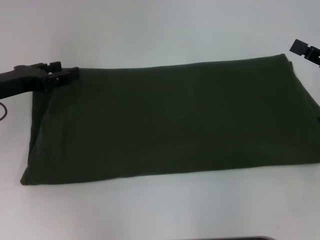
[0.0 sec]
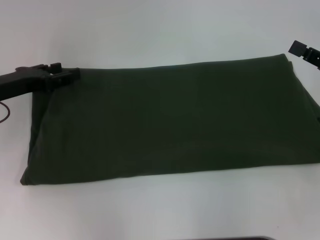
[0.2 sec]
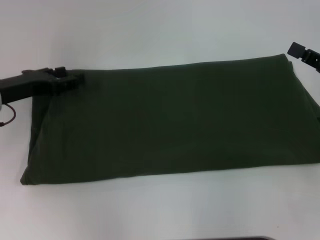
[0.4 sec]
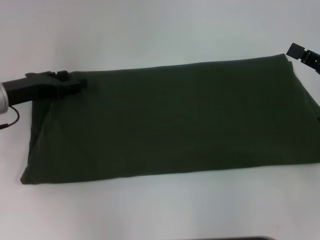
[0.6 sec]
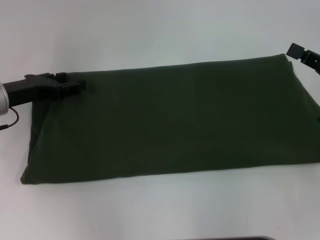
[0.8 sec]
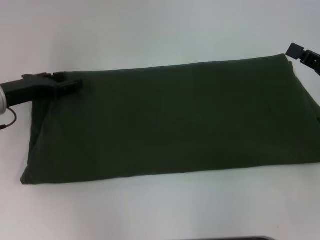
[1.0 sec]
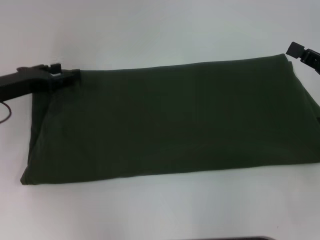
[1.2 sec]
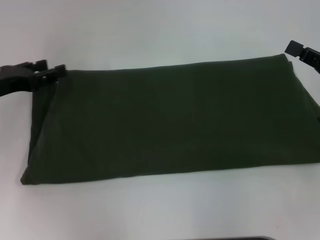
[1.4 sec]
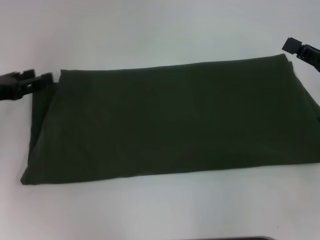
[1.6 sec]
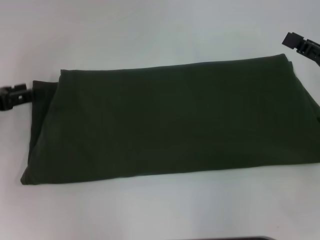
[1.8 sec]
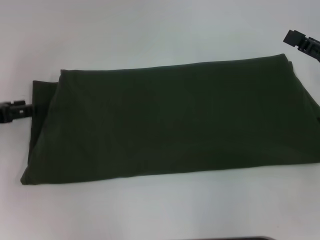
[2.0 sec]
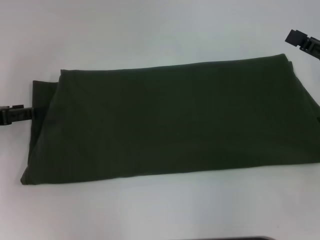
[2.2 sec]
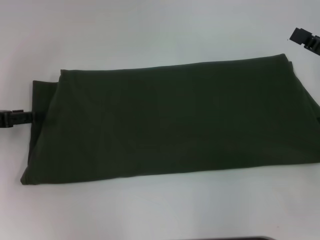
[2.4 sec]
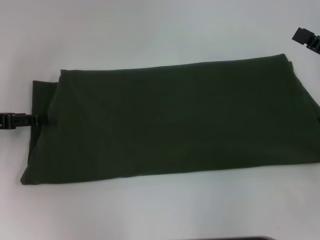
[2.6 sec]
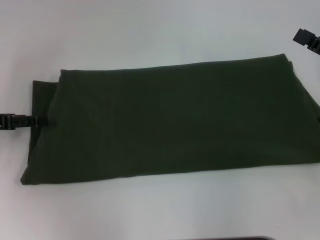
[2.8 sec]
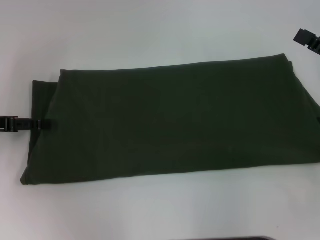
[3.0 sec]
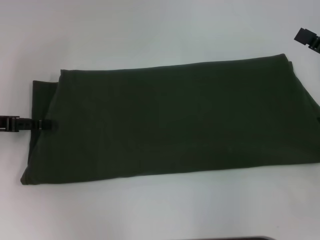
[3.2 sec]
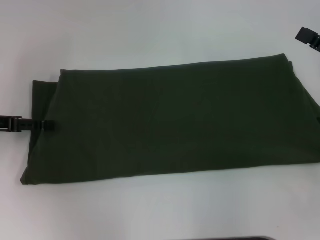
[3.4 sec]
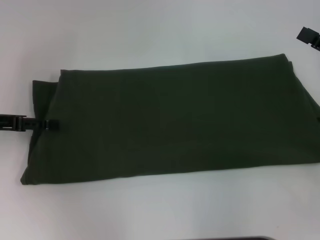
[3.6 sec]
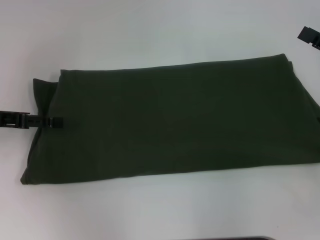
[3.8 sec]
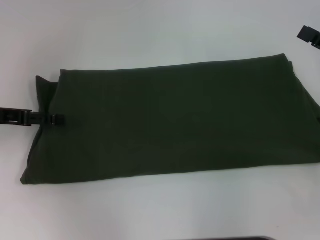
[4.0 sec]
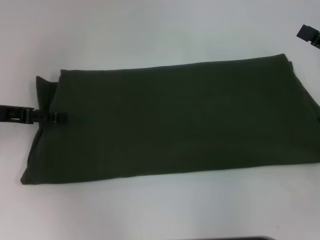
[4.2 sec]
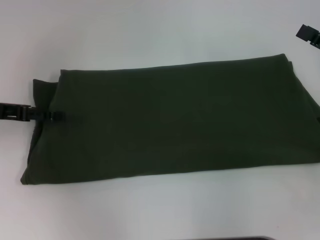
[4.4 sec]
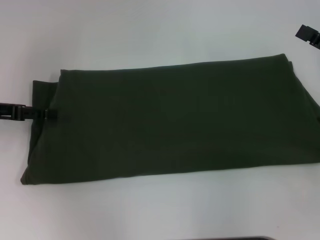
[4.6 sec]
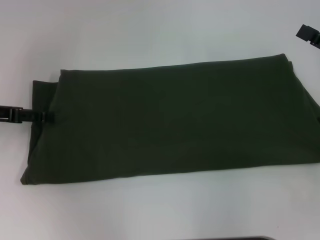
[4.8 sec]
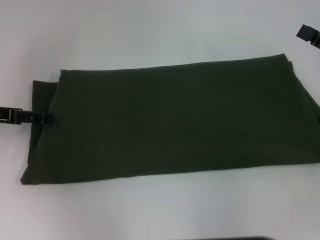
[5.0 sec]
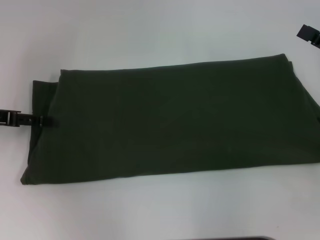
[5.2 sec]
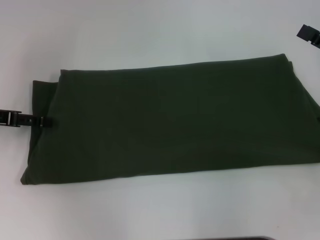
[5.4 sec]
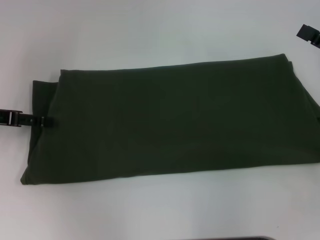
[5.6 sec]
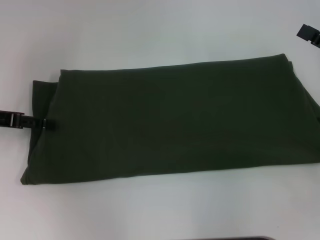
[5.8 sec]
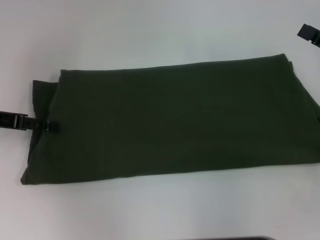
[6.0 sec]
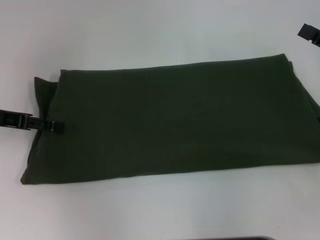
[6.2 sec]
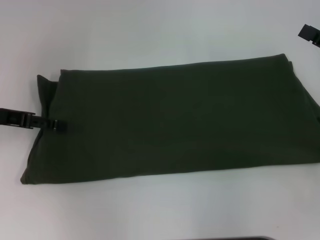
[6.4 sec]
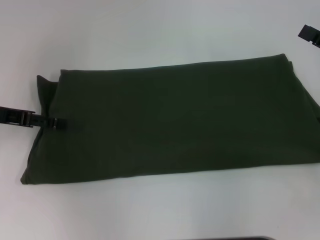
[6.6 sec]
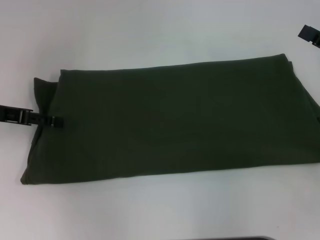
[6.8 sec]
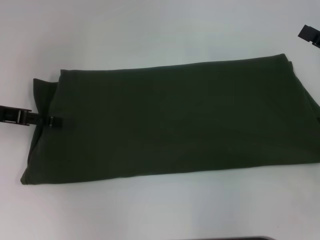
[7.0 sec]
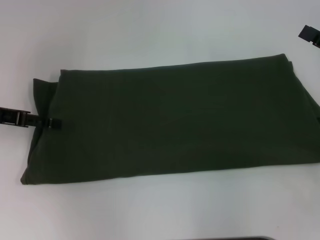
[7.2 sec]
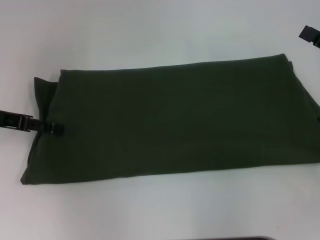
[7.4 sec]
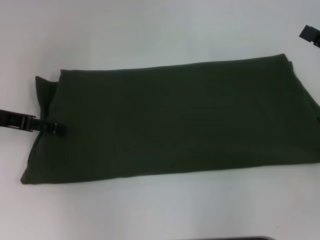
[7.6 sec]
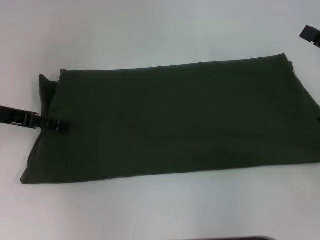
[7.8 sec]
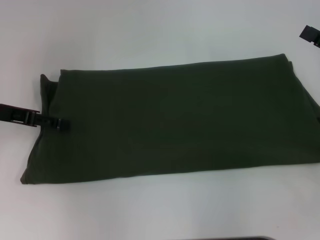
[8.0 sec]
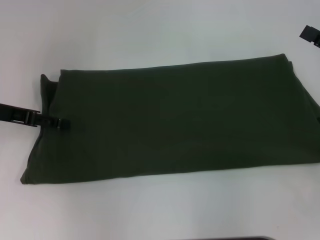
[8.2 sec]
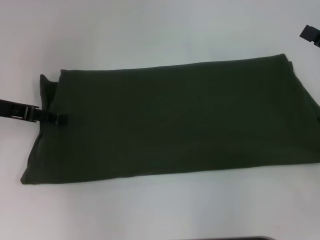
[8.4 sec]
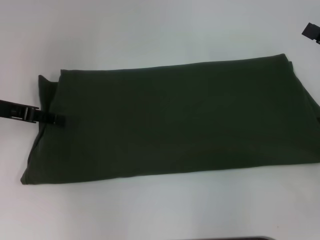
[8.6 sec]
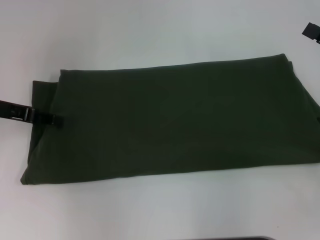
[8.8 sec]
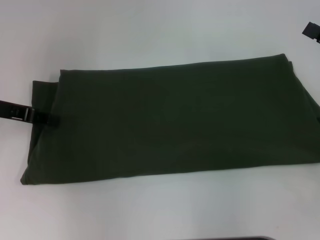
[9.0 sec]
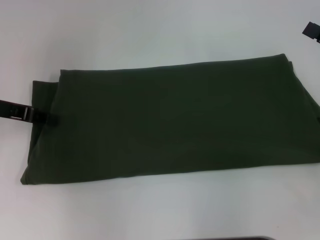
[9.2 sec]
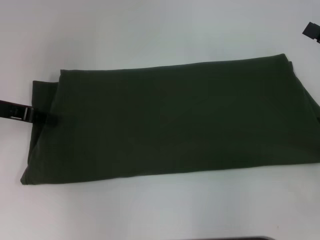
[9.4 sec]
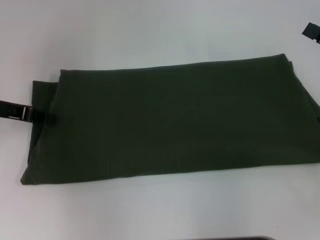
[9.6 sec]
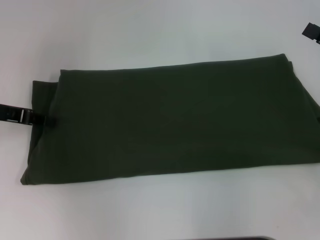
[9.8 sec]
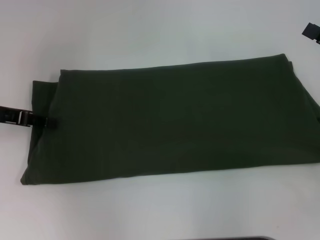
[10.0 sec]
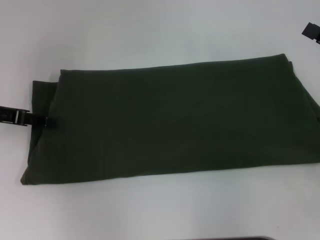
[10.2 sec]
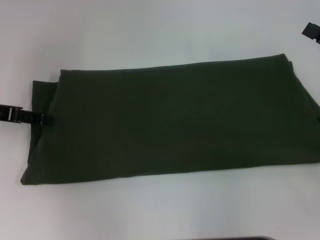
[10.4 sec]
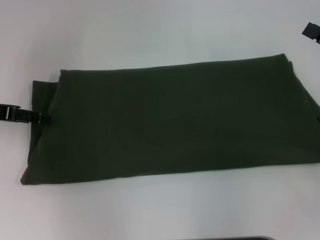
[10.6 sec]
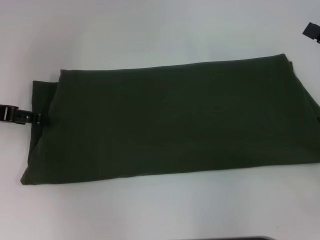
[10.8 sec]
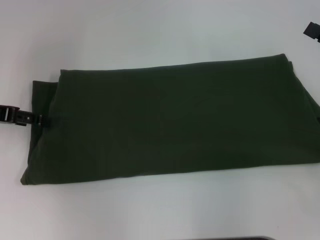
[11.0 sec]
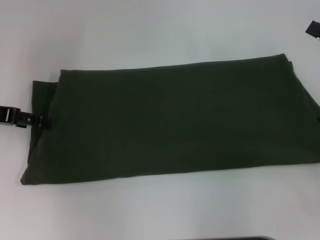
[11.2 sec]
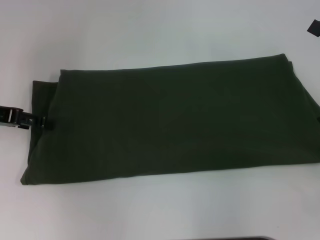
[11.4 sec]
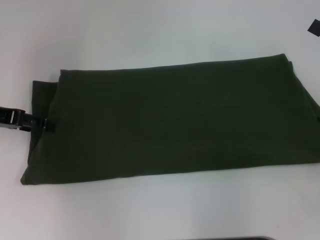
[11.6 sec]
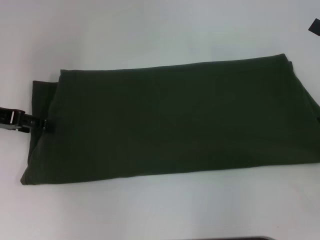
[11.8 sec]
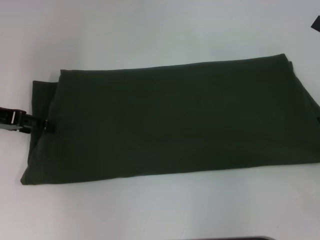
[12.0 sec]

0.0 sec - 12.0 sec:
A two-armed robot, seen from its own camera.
0.0 sec - 1.6 sec: The grippers move only a little.
1.6 sec - 3.0 sec: The right gripper opens up.
3.0 sec - 6.0 sec: There are only small adjustments of the grippers.
6.0 sec - 7.6 sec: The two grippers keep their place.
7.6 sec - 9.0 sec: The left gripper closes up.
10.4 sec - 12.0 sec: The grippers make only small movements.

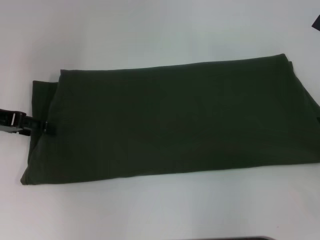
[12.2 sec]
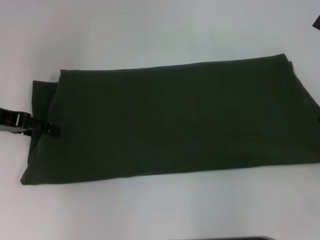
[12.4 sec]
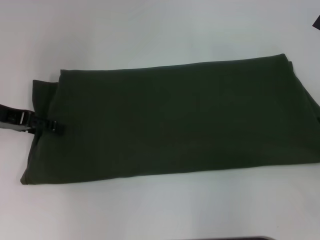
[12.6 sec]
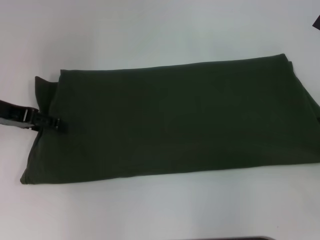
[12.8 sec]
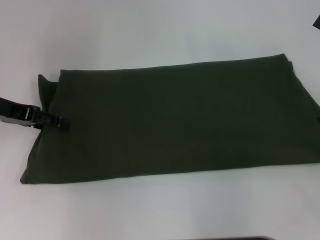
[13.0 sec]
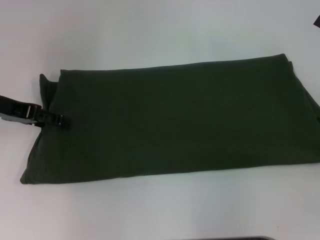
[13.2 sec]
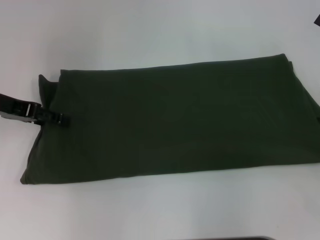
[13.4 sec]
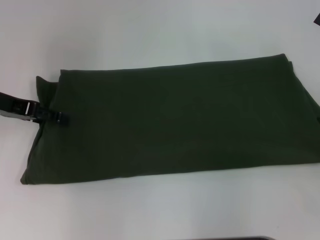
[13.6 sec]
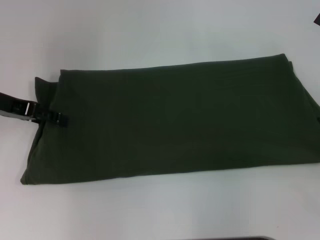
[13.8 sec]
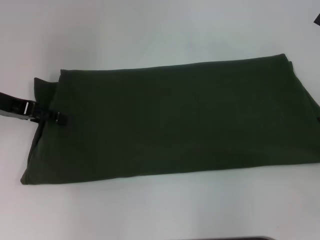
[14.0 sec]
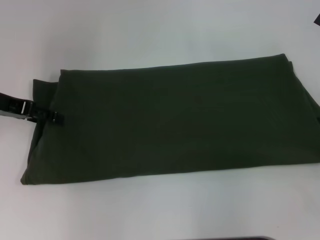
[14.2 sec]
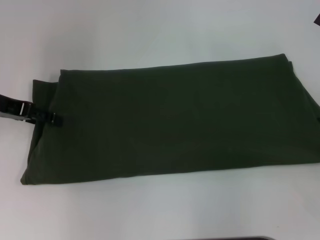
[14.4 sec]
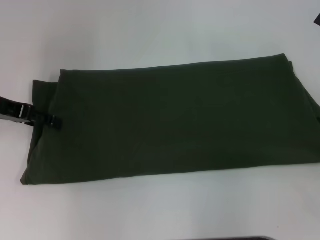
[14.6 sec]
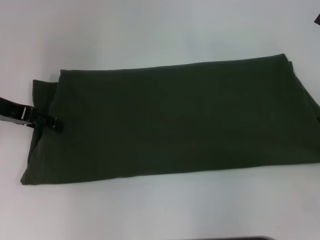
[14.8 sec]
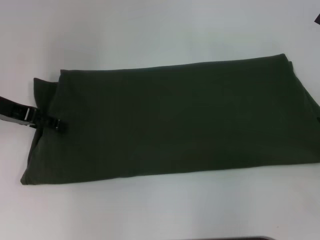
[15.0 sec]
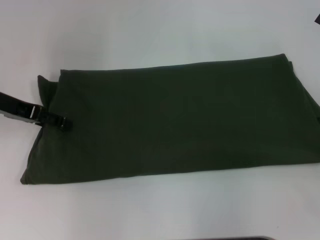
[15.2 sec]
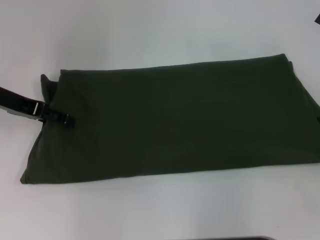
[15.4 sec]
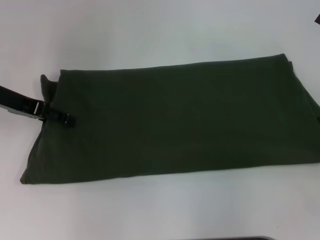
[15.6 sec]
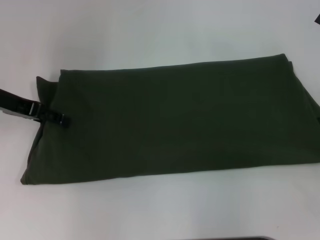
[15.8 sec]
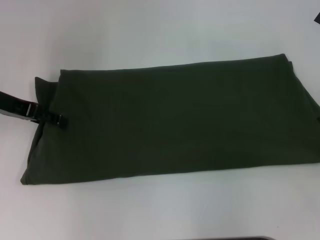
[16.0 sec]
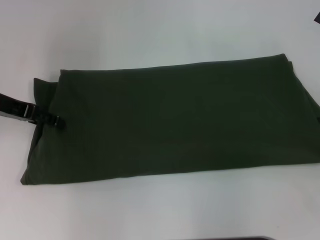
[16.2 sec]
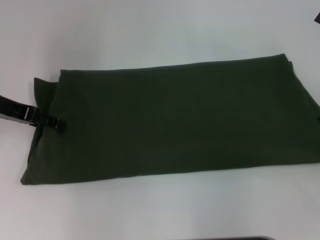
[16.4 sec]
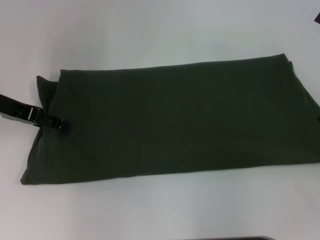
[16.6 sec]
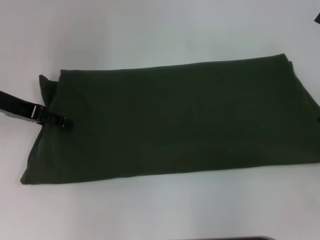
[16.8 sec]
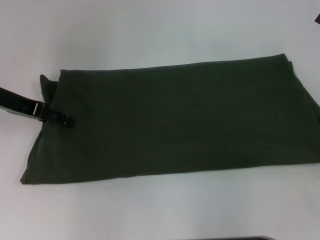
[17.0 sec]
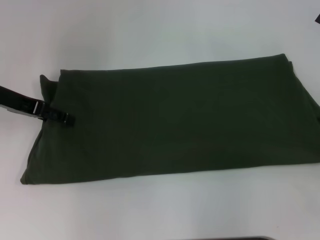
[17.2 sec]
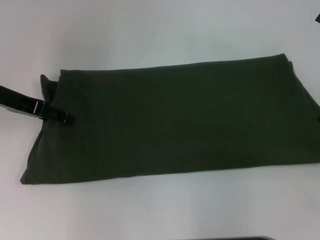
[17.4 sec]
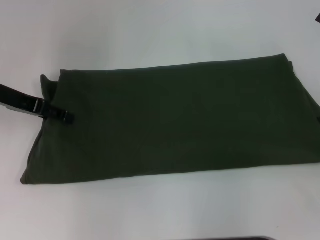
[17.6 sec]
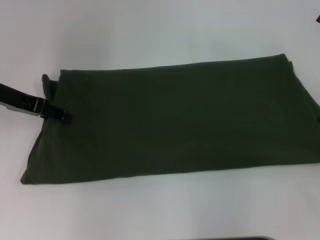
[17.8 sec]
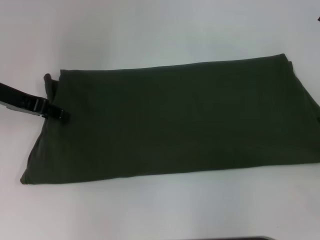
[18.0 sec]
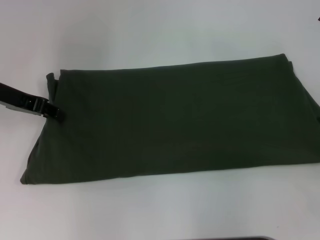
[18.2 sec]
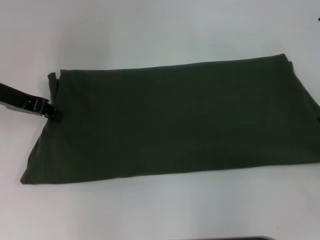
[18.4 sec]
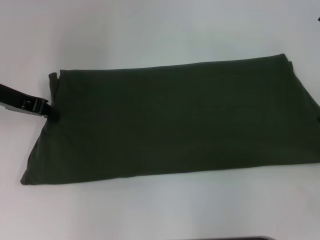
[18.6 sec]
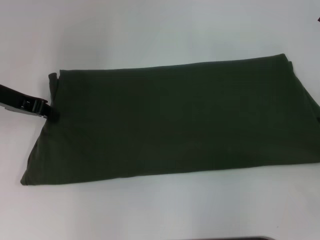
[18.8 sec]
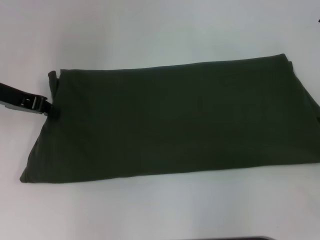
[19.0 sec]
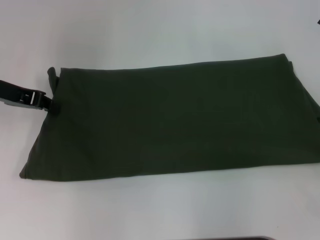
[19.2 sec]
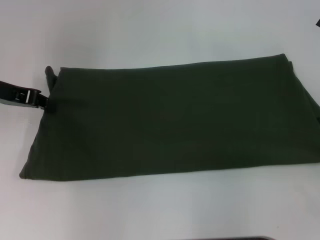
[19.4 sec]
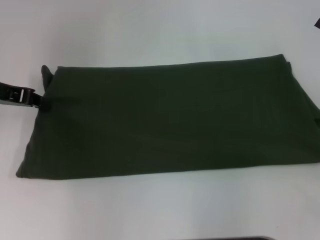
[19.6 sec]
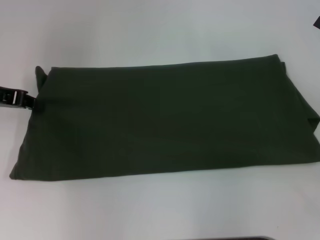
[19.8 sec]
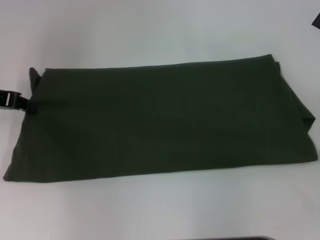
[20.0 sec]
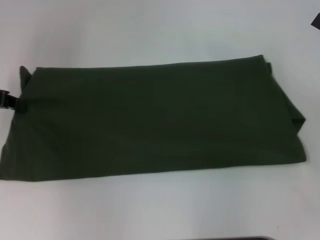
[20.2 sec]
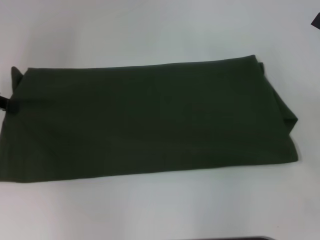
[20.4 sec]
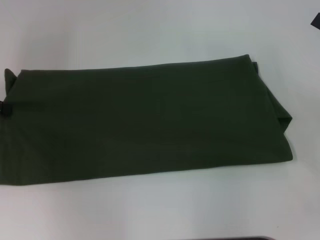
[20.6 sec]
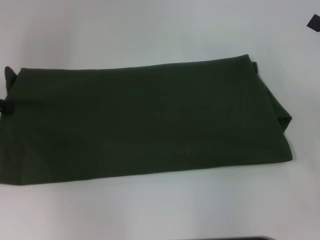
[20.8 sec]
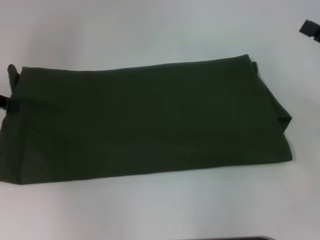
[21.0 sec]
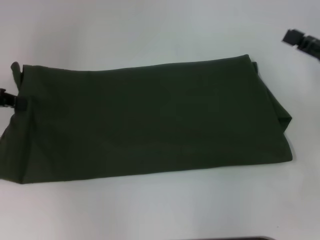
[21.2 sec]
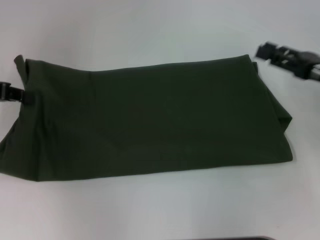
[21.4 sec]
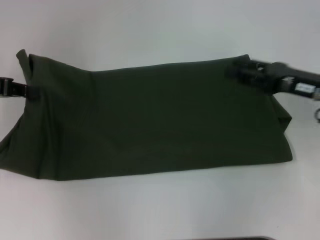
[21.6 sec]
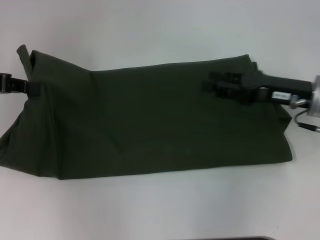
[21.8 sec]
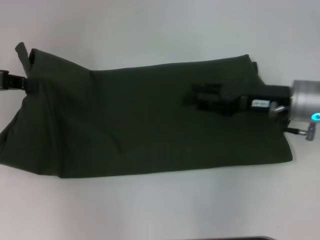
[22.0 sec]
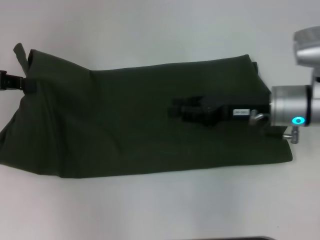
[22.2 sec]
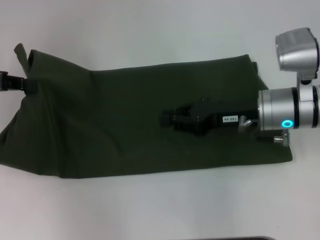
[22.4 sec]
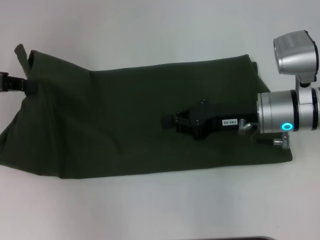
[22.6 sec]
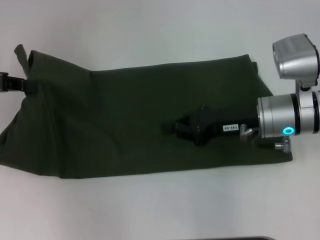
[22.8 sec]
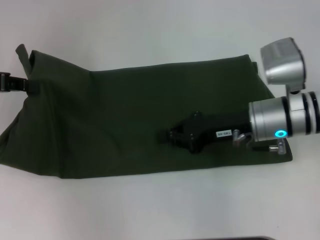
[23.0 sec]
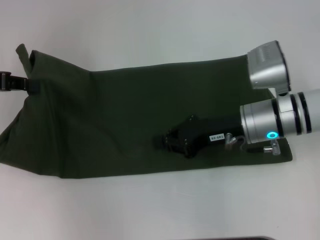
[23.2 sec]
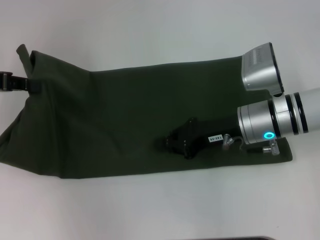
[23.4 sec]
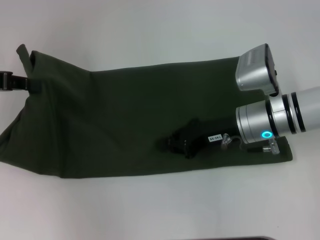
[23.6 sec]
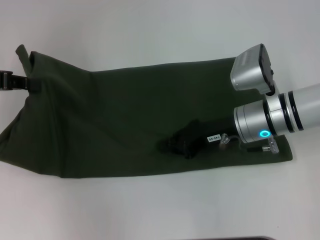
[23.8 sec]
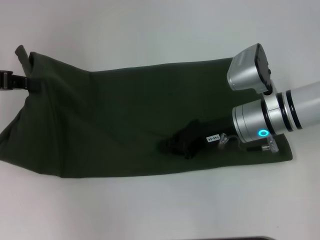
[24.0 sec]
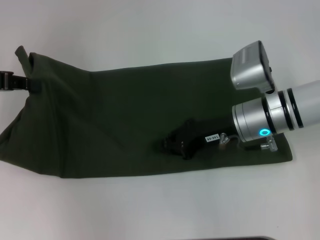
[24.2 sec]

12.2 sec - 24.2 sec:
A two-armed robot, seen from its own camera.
12.2 sec - 13.8 sec: The grippers make only small movements.
13.8 sec - 15.2 sec: Both grippers stay put.
15.2 sec - 16.6 sec: Both grippers stay about where they are.
16.6 sec - 18.2 sec: The left gripper closes its fingers.
18.2 sec - 19.8 sec: The left gripper closes.
19.8 sec - 21.2 sec: The grippers move only a little.
21.2 sec - 22.6 sec: The right gripper heads to the left, covering about 15 cm, and closes its fingers.
22.6 sec - 24.2 sec: The grippers make only small movements.
